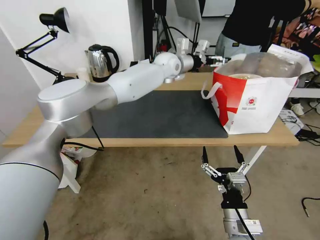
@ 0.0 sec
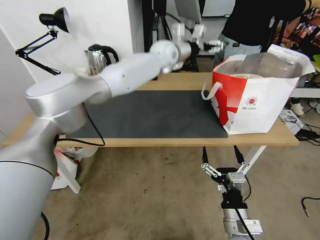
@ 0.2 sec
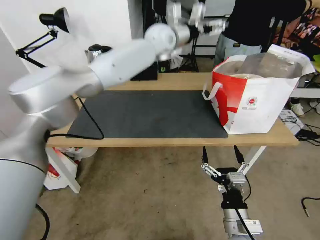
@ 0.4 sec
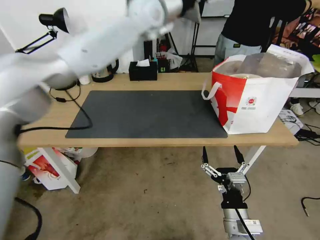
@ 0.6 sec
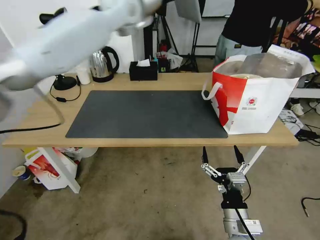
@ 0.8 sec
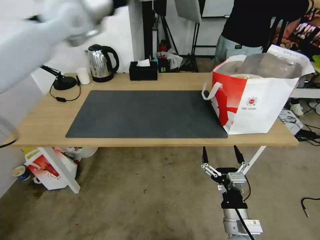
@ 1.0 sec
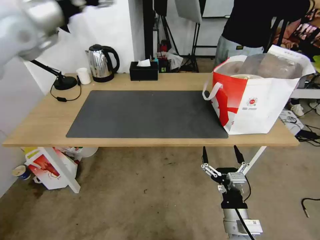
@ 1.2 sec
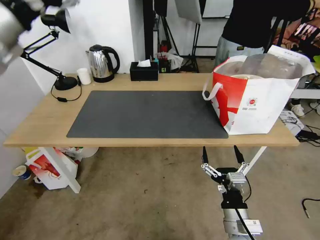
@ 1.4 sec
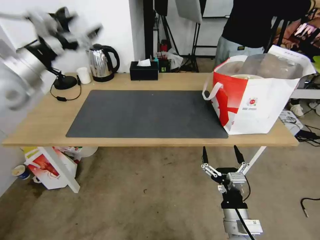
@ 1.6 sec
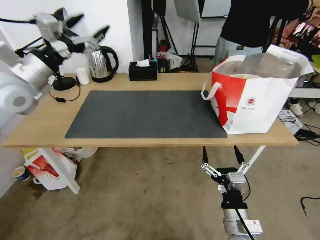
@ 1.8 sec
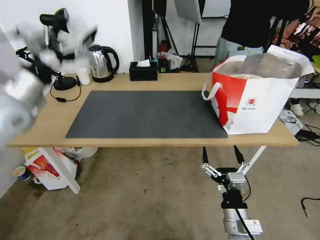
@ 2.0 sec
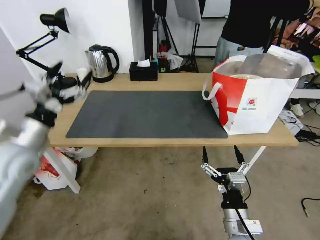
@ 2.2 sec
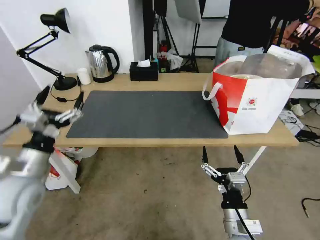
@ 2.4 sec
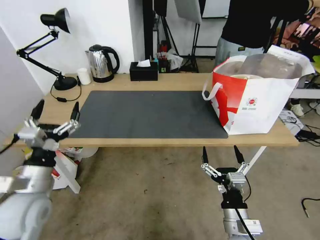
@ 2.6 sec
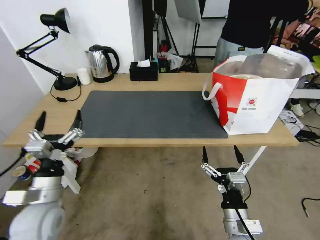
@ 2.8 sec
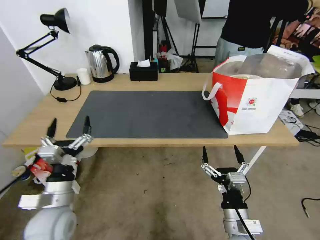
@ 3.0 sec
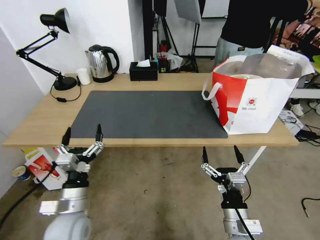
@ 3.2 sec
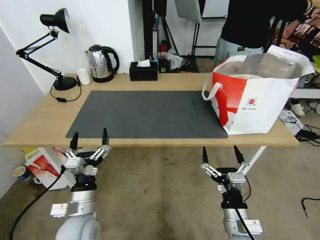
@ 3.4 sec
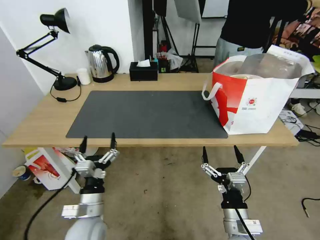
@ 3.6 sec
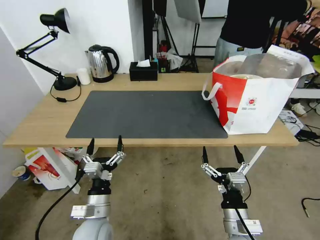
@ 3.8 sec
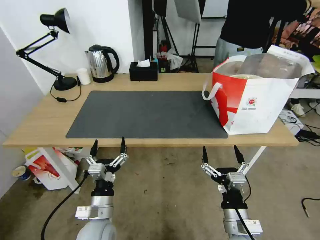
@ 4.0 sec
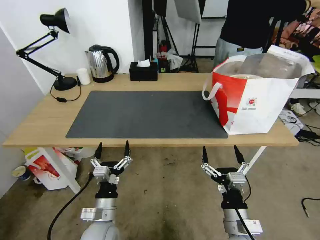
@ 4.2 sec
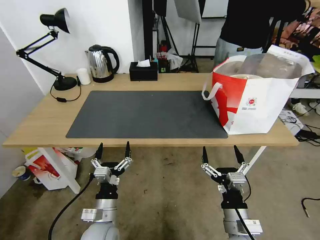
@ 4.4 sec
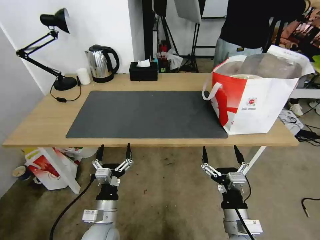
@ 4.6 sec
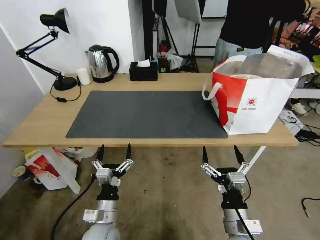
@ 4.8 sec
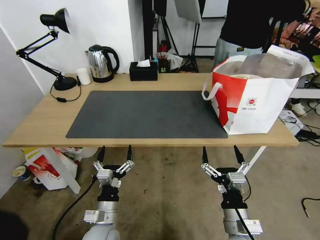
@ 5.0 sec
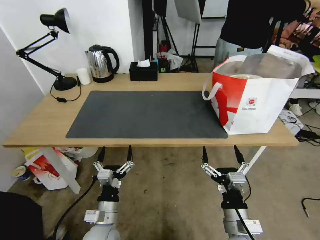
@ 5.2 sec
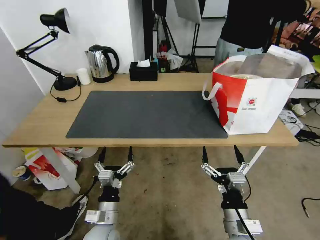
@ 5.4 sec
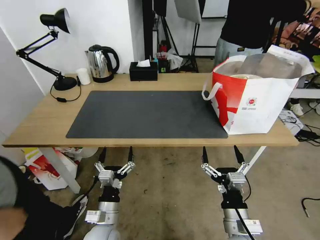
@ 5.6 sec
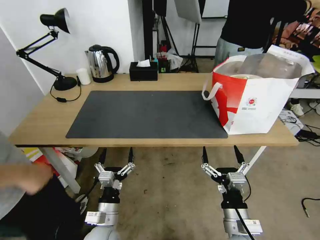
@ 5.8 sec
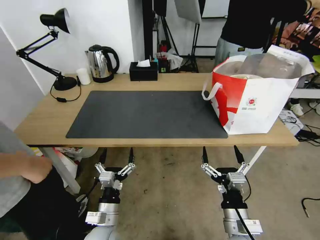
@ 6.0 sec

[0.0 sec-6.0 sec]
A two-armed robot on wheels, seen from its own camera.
Task of the whole recording: Pick up the trash from the table and place it into the takeout bag.
0.0 sec to 1.6 sec: The left gripper goes about 50 cm to the left and backward.
1.6 sec to 3.0 sec: The left gripper goes roughly 35 cm downward and backward.
3.0 sec to 4.4 sec: The left gripper heads to the right and downward, covering some 15 cm.
4.4 sec to 6.0 sec: The grippers move only a little.
